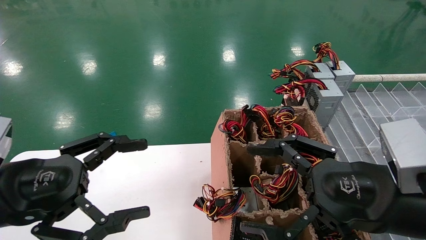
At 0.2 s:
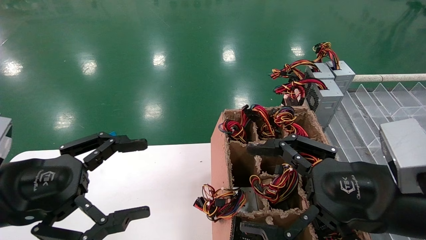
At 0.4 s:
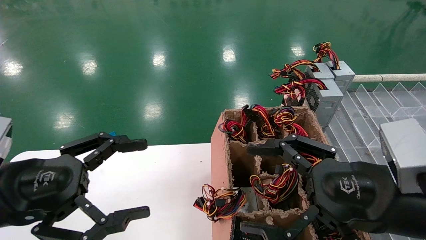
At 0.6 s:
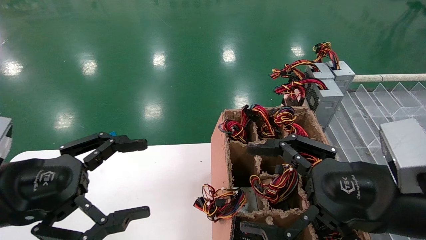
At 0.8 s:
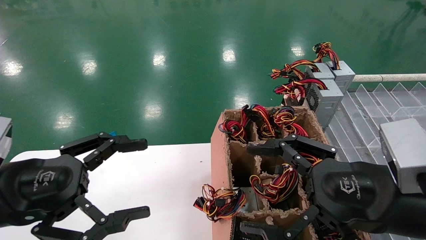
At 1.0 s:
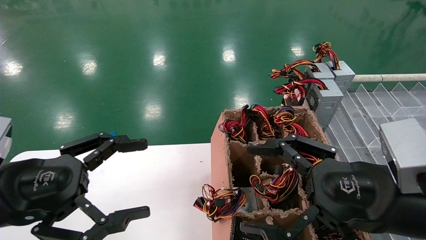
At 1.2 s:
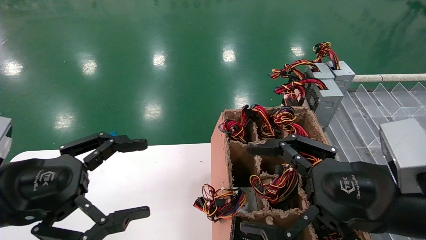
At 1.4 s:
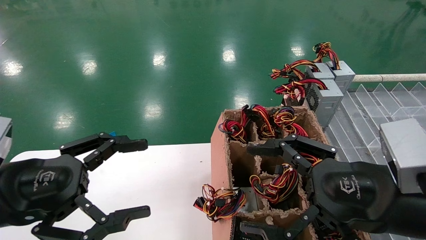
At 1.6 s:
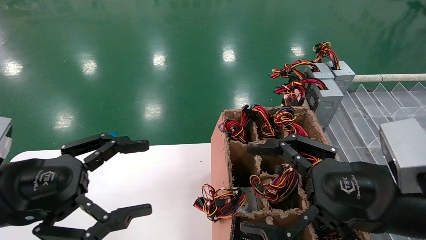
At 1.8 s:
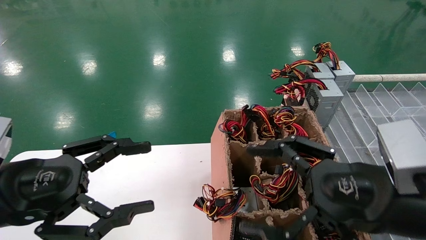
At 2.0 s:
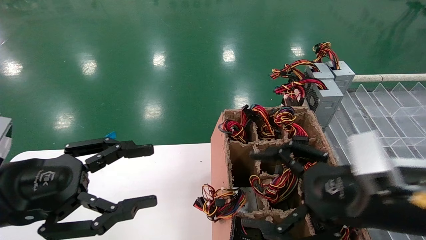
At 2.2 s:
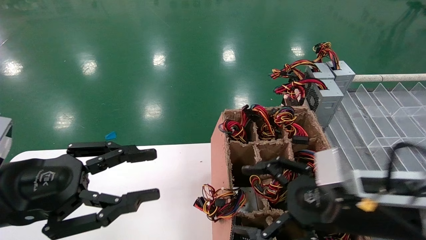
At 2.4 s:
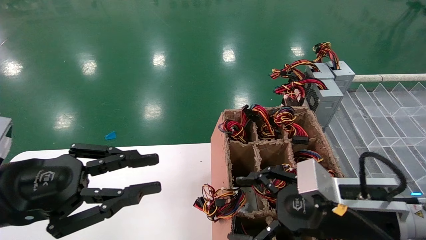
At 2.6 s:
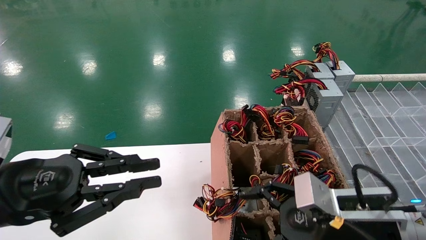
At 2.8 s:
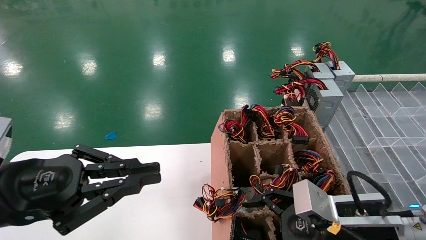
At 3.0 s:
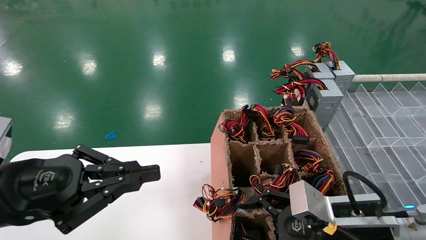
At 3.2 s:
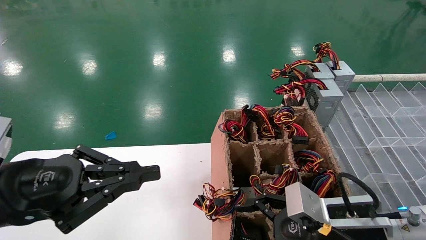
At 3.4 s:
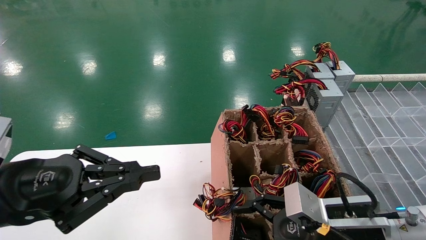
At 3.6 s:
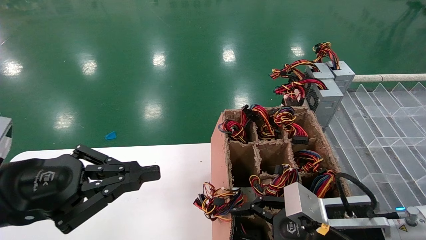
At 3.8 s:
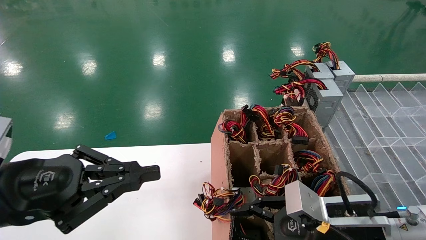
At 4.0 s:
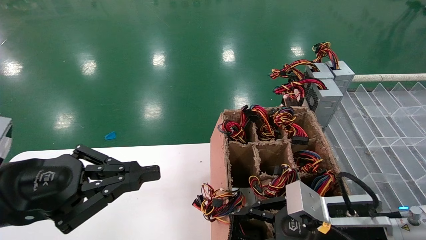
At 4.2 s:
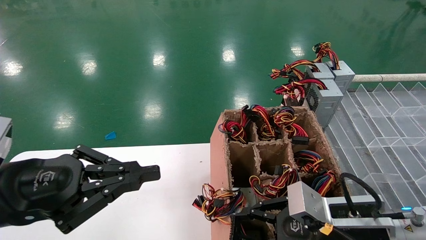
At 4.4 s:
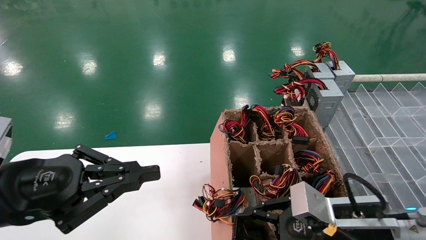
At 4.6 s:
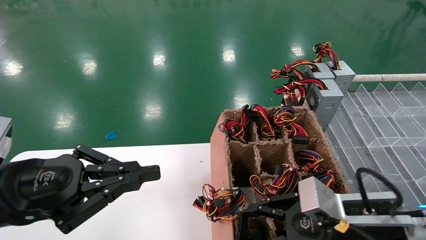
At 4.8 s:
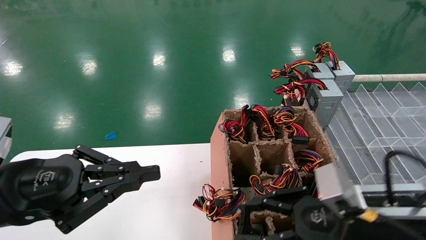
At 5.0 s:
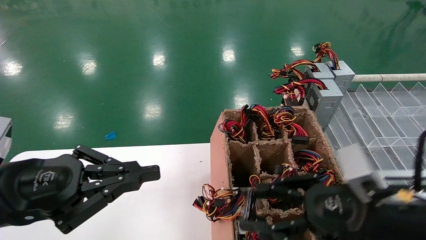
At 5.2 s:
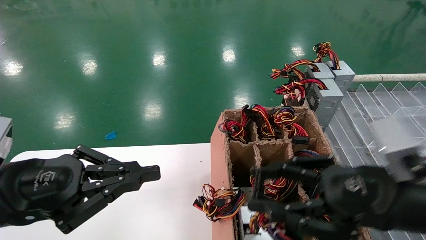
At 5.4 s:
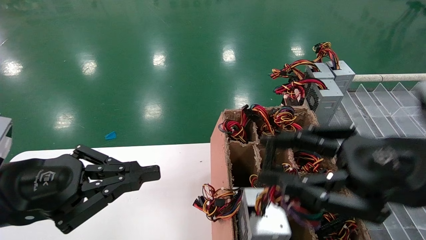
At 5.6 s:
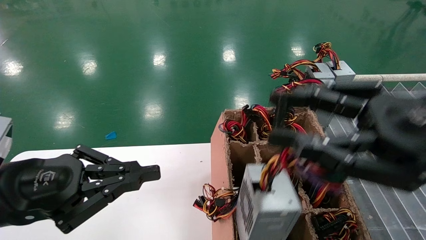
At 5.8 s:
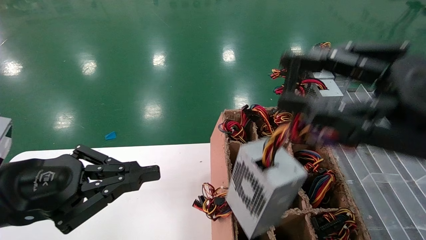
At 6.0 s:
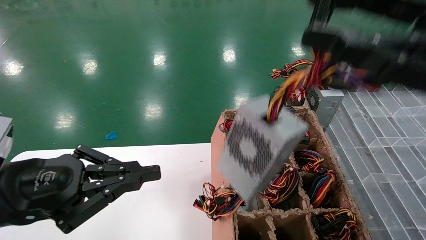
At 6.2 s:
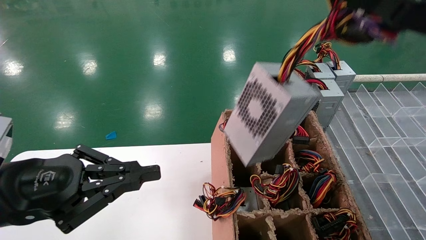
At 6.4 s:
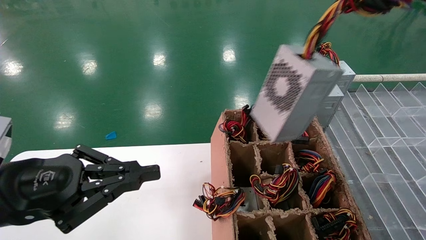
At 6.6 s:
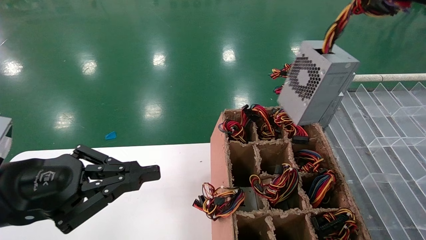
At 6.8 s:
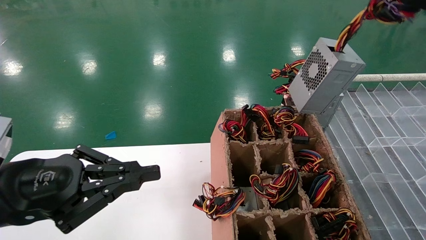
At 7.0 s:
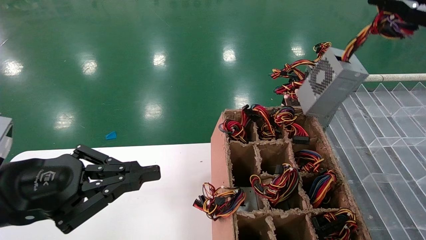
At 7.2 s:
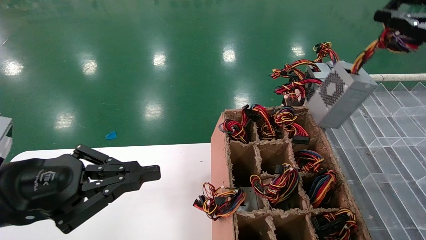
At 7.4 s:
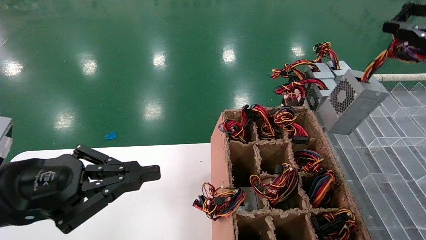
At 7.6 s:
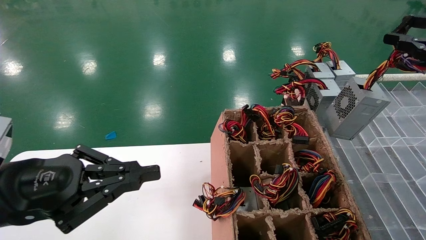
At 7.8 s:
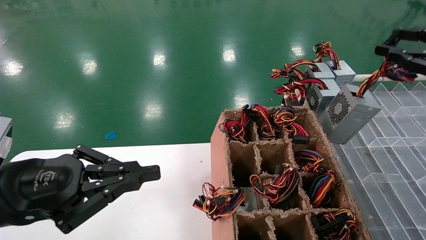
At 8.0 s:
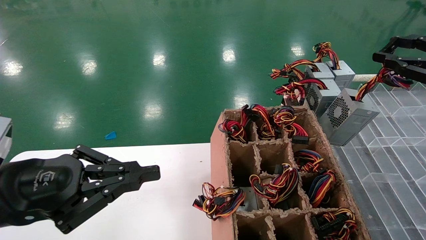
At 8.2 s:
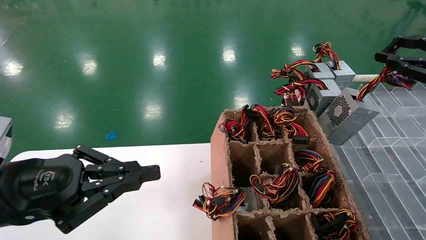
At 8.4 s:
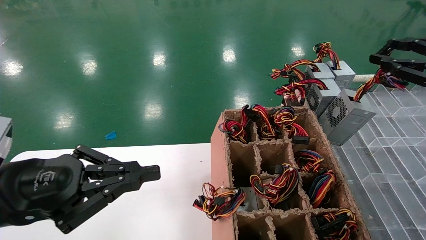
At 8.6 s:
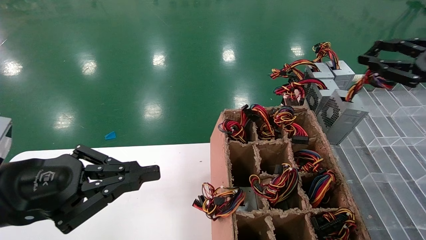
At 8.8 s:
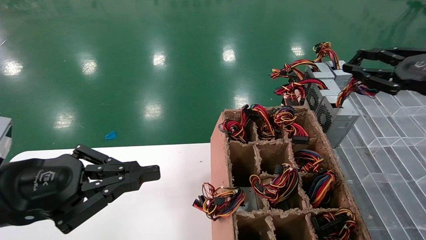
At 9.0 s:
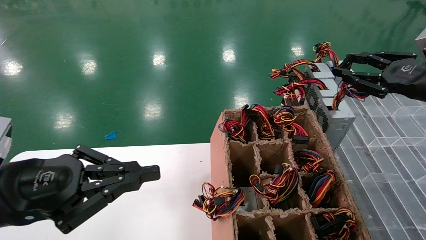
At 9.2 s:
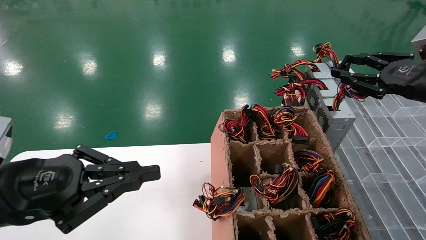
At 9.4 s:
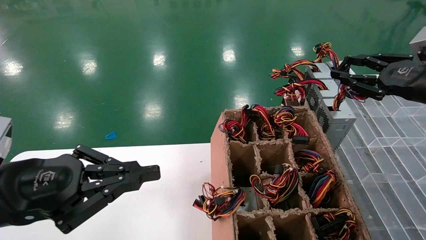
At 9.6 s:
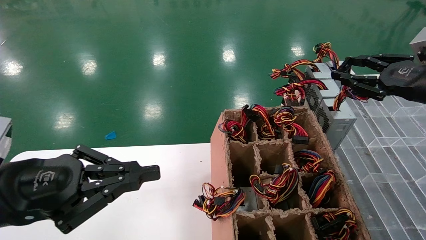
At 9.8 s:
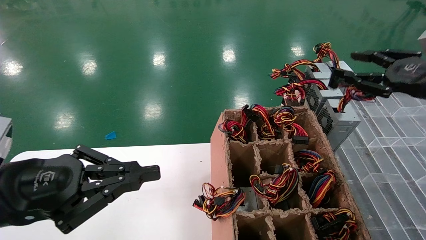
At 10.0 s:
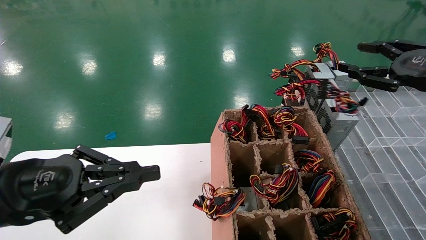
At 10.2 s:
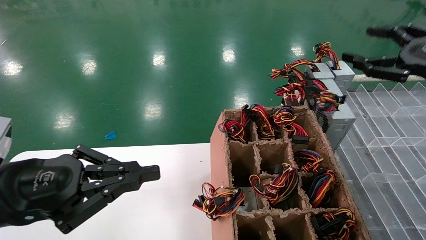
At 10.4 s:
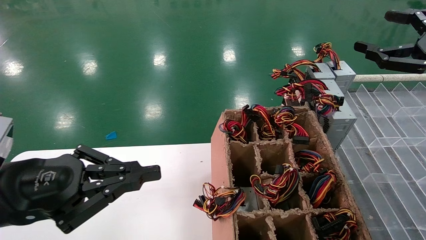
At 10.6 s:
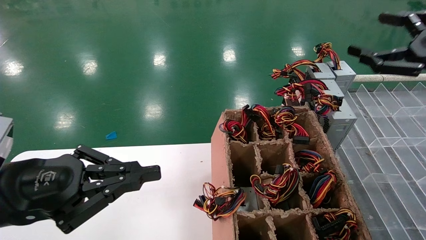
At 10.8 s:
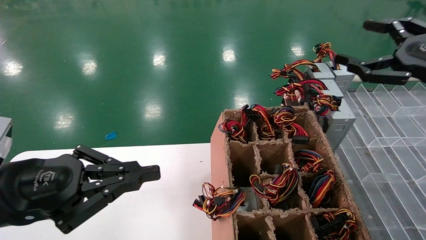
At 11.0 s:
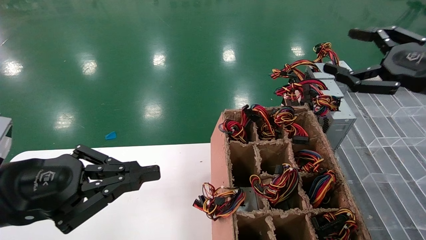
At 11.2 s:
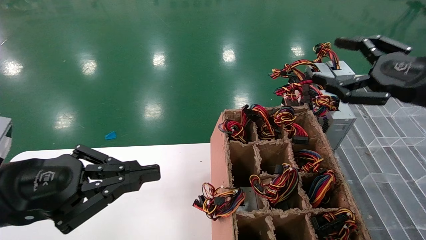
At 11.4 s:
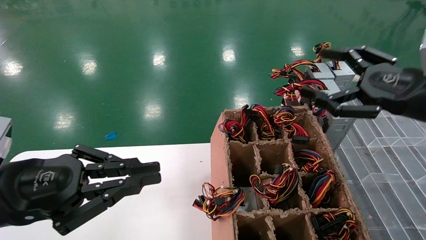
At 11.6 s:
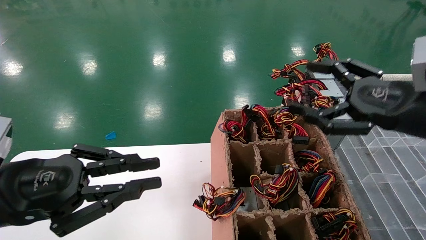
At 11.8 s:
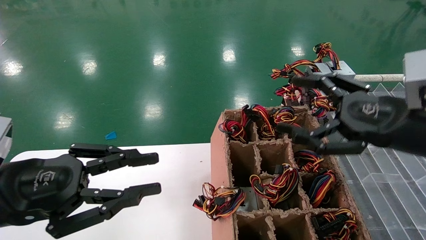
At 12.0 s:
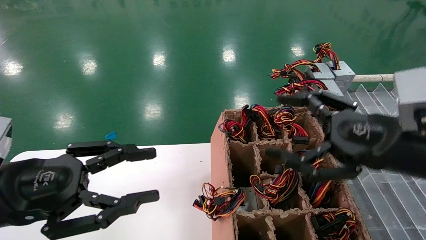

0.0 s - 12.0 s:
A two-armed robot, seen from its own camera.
Step, 2.2 s - 5.0 s: Grab the main unit power supply from the containment box.
Step, 5.2 s - 10.0 s: Place the main unit power supply in the designated area.
0.0 s - 1.6 s: Both grippers stay put.
1.6 s - 3.0 s: The right gripper is displaced downward by some 10 cm. The left gripper closes its fingers.
3.0 s - 4.4 s: The right gripper closes.
4.4 s - 6.0 s: The right gripper is displaced upward by approximately 25 cm.
6.0 s - 7.6 s: The right gripper is displaced to the right and forward by about 20 cm.
7.6 s - 9.0 s: The right gripper is displaced forward by approximately 5 cm.
9.0 s - 10.4 s: The right gripper opens up.
10.4 s - 12.0 s: The right gripper is displaced to the left, downward and backward by some 20 cm. Meanwhile the left gripper opens its fingers.

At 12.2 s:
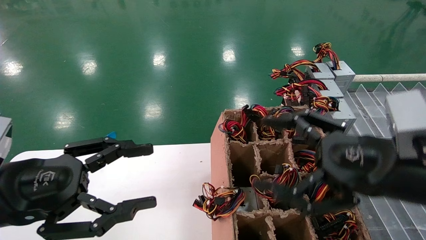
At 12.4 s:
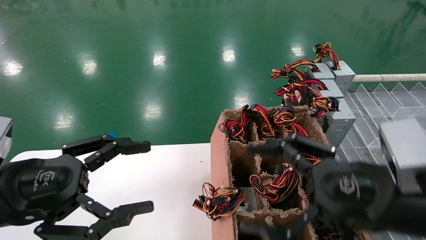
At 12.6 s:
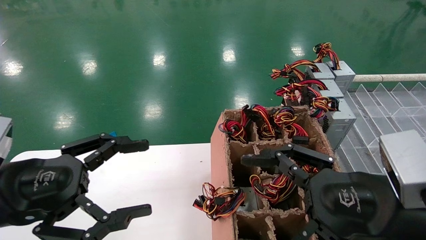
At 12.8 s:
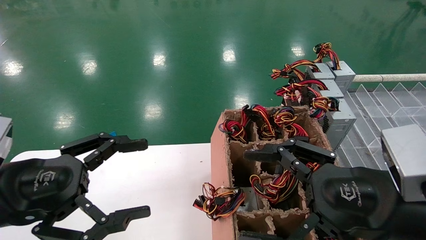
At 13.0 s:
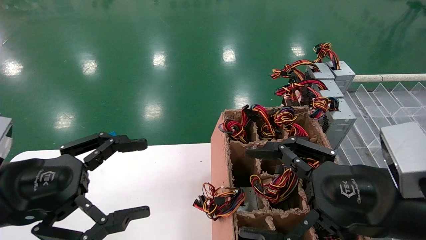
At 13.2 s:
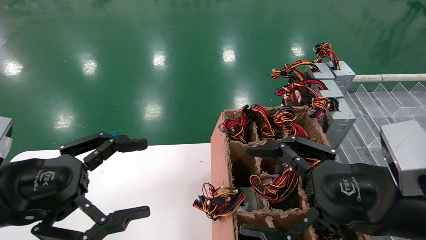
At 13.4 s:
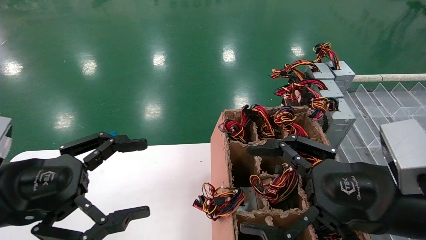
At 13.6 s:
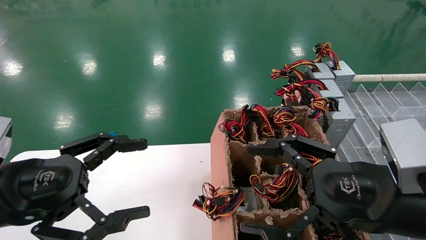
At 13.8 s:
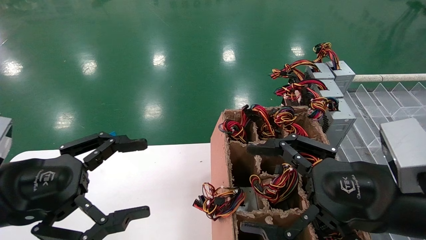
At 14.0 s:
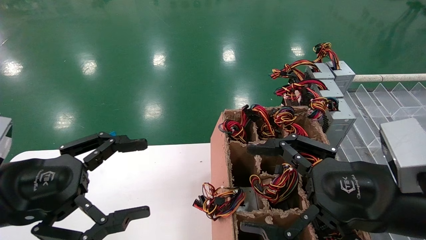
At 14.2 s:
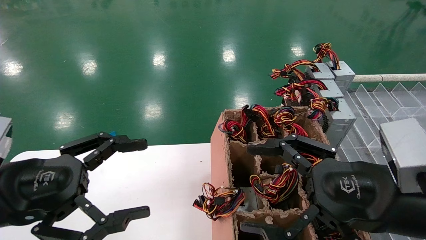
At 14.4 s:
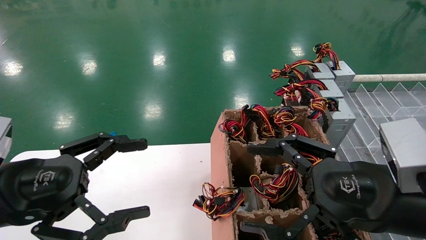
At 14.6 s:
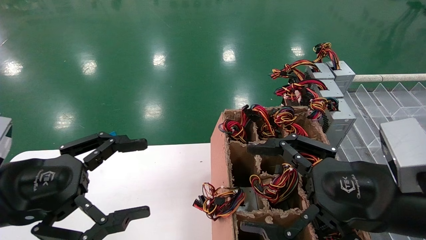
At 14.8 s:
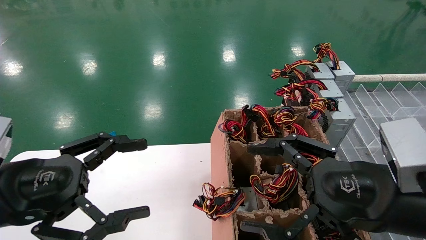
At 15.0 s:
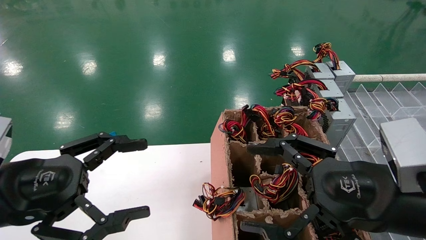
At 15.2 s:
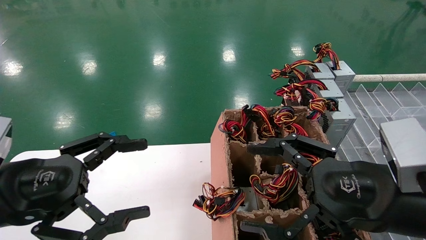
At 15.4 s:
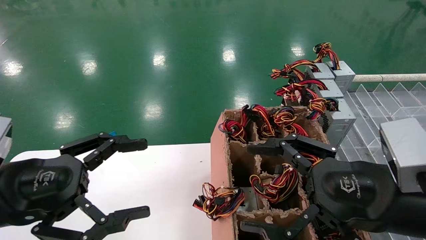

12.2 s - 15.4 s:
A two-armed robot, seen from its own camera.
12.2 s - 13.8 s: The left gripper opens up.
13.8 s - 15.4 s: The two grippers keep their place.
